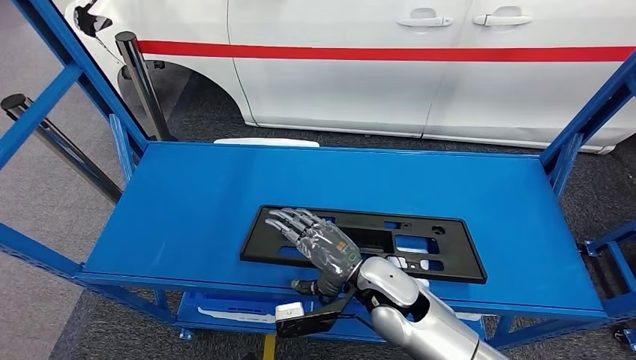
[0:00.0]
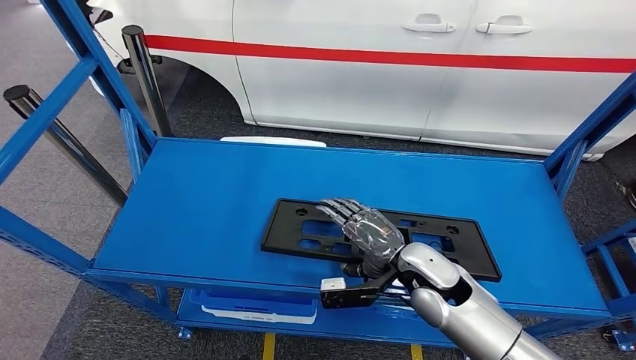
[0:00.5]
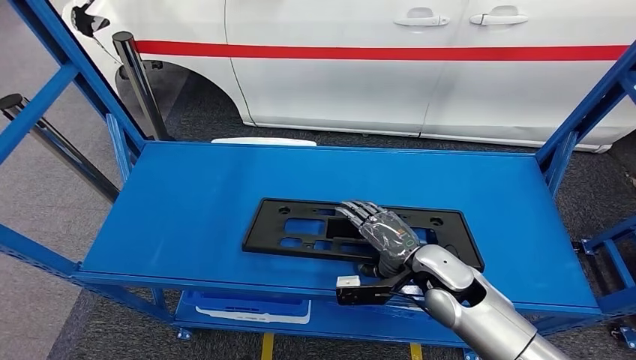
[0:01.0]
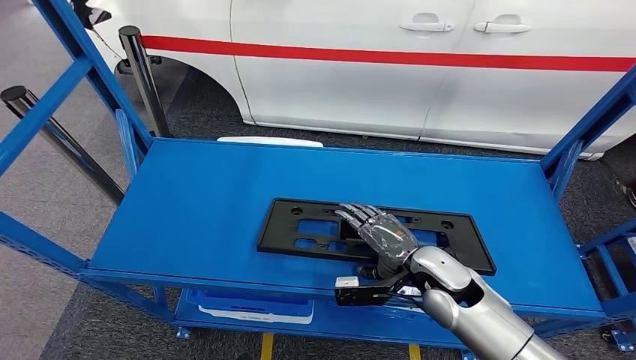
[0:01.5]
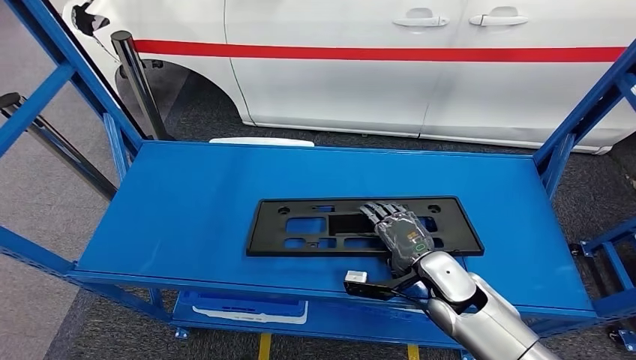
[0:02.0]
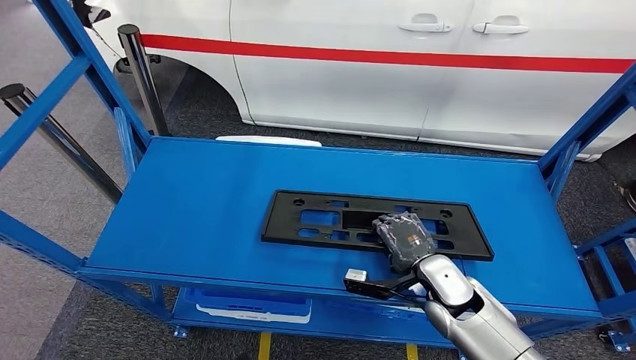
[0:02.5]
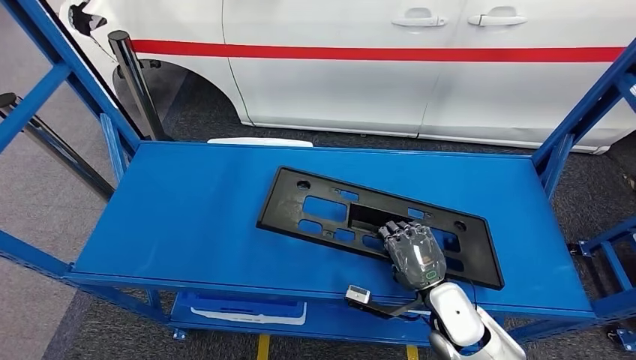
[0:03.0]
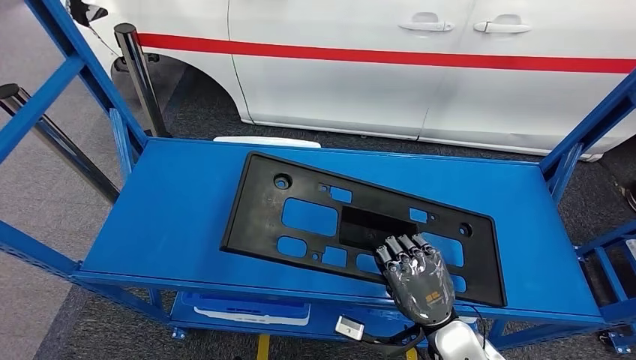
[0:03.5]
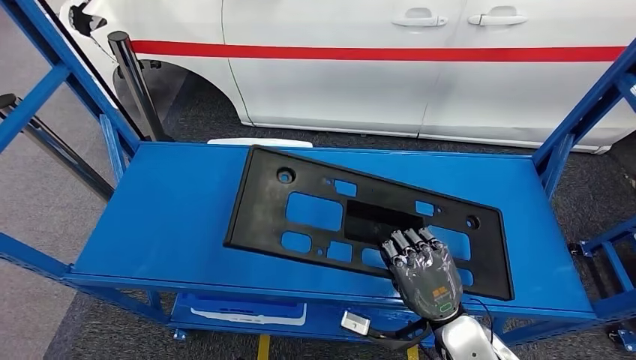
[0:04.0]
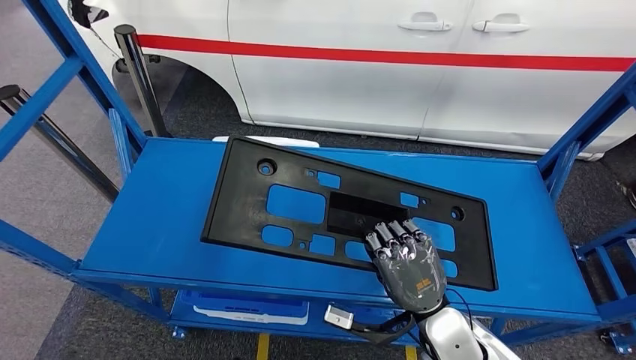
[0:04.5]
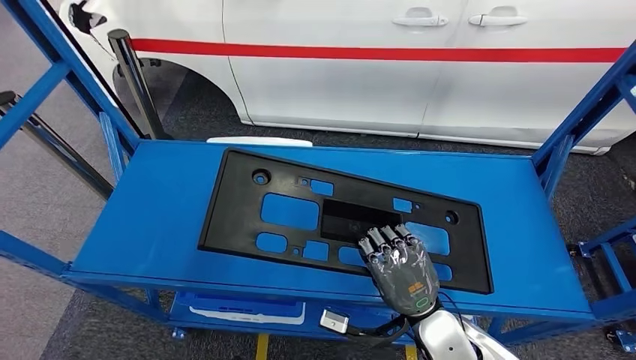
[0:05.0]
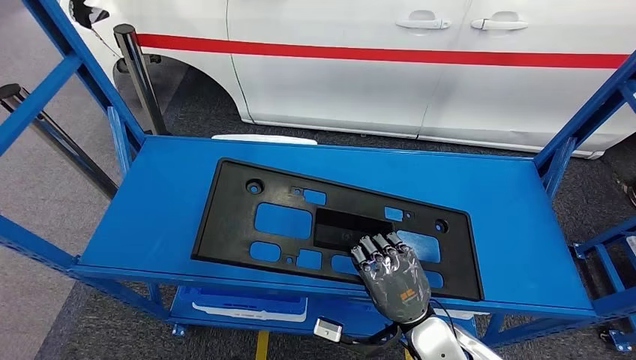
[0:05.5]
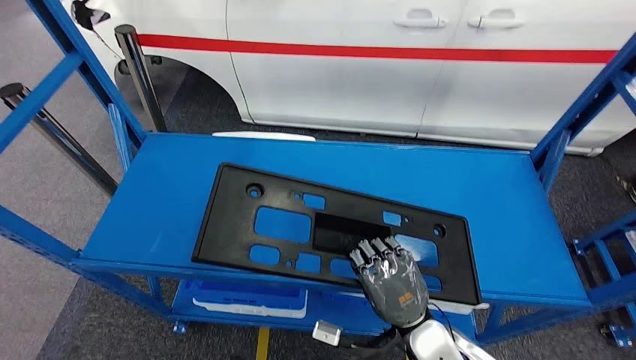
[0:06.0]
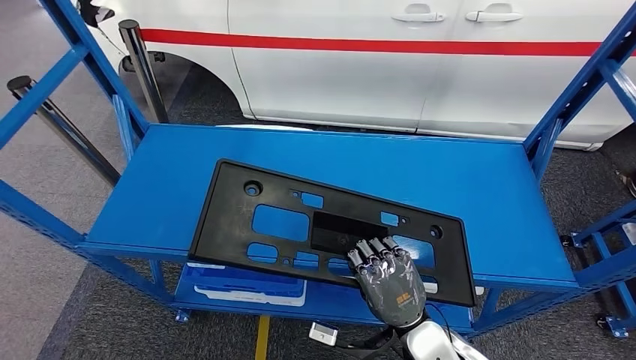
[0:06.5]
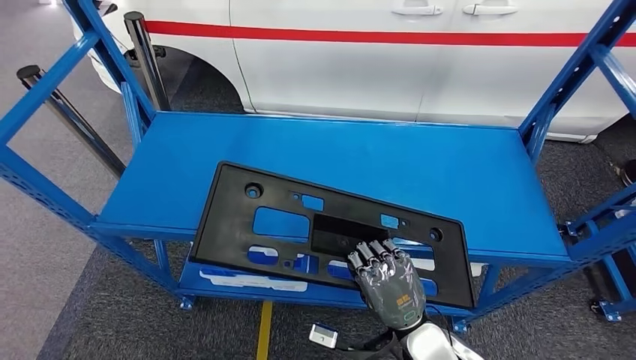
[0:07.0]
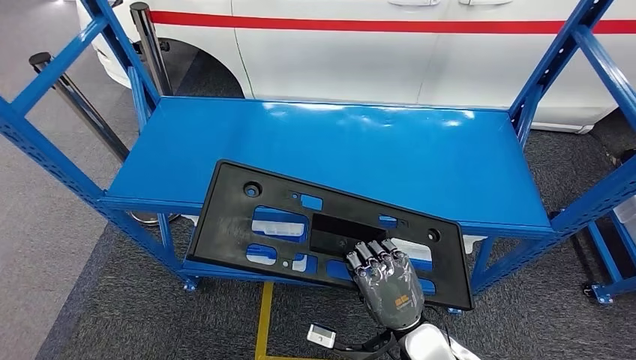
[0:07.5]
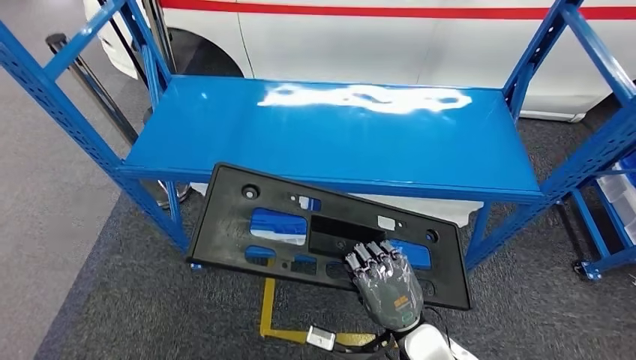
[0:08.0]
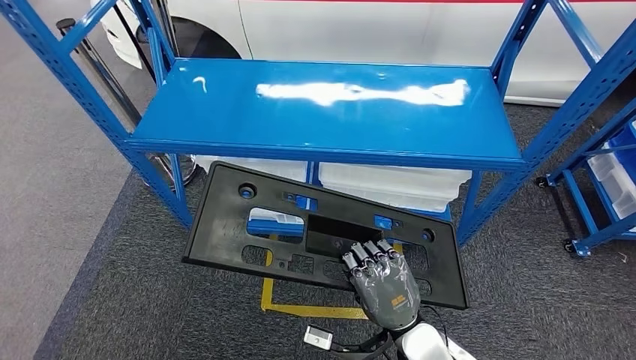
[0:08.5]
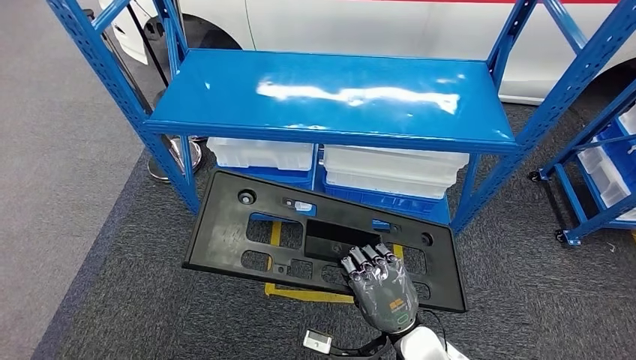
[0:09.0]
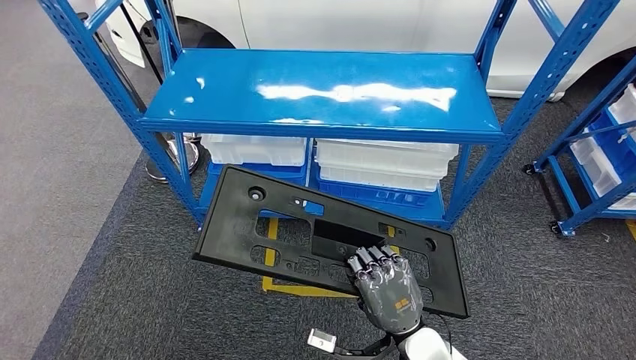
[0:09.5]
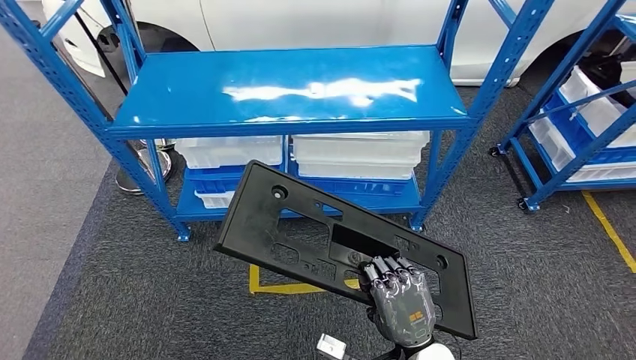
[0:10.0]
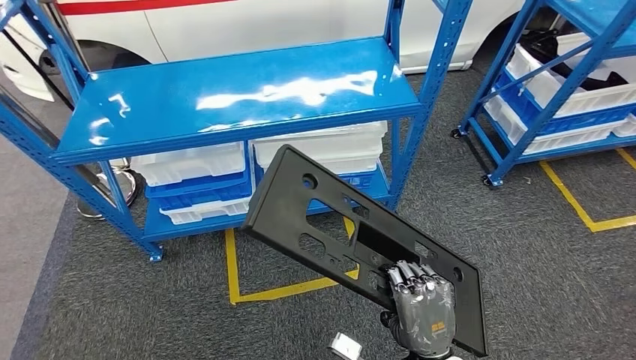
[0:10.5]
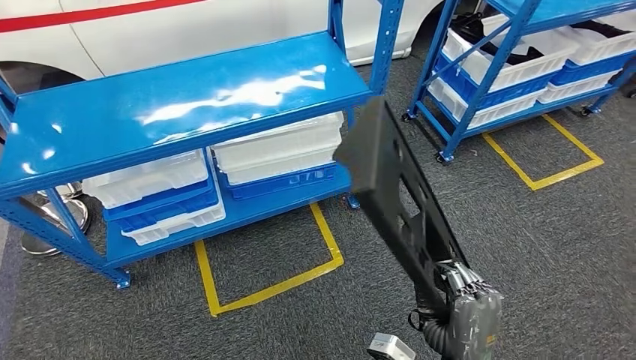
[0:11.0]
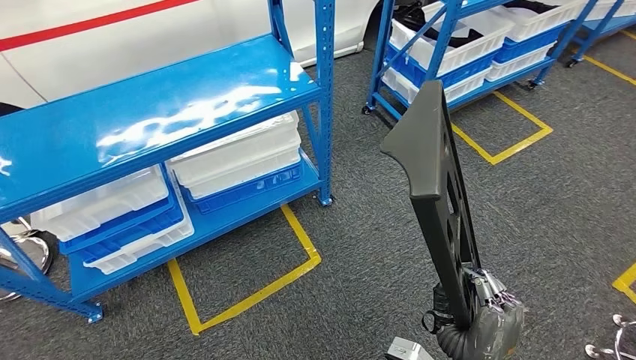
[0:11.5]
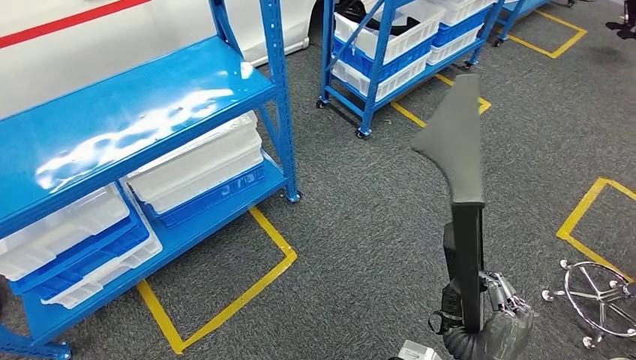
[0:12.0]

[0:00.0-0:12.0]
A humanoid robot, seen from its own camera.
Step, 0:00.0 to 0:03.5: Pick up the large material from the shelf.
0:00.0 to 0:02.0: The right hand moves to the right, roughly 10 cm.
0:02.0 to 0:04.0: The right hand is displaced backward by roughly 10 cm.

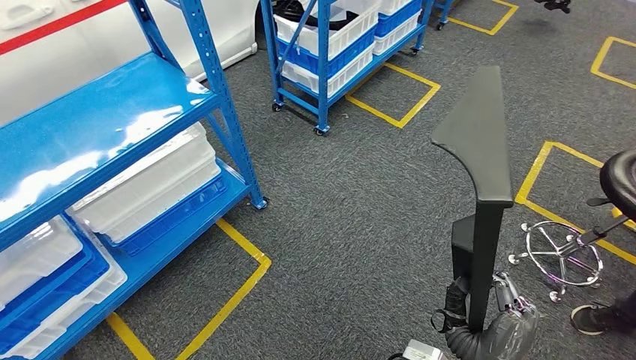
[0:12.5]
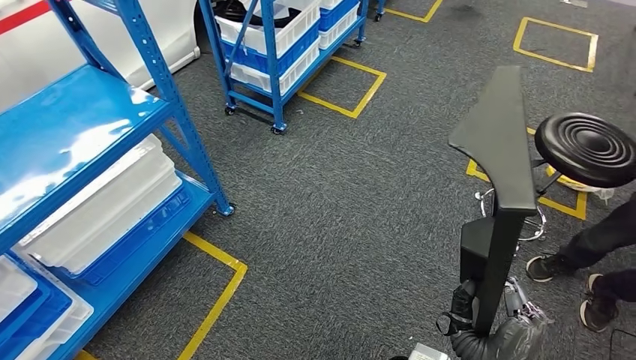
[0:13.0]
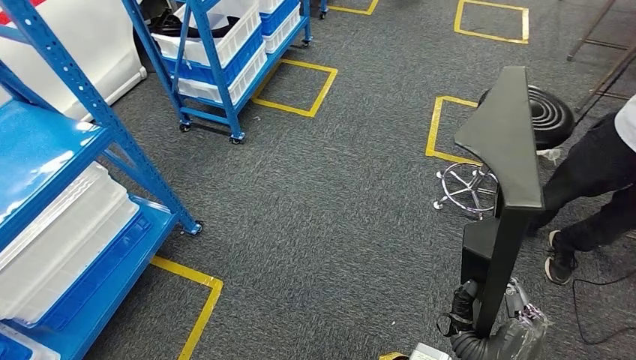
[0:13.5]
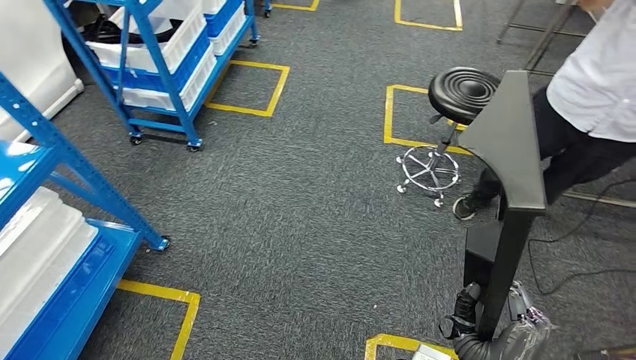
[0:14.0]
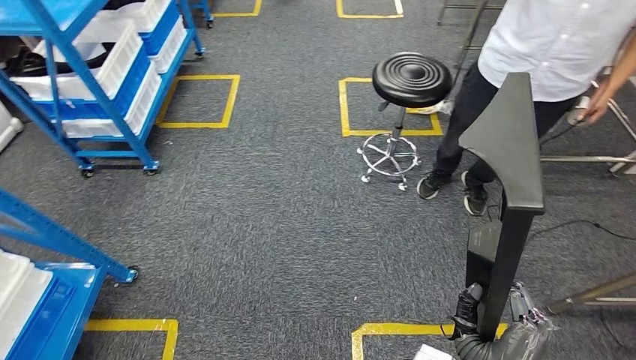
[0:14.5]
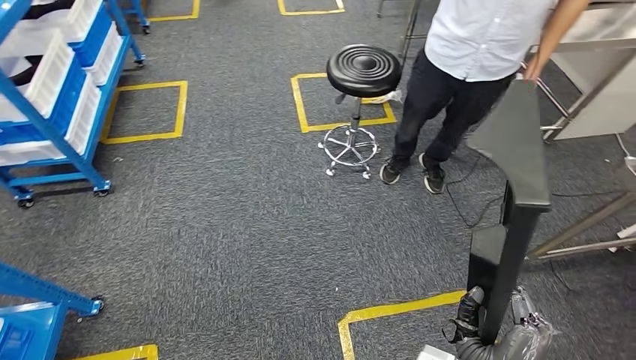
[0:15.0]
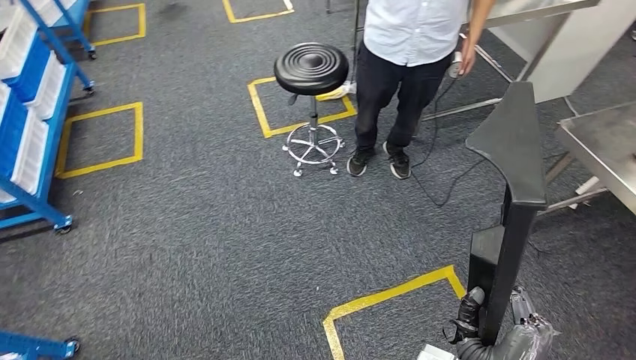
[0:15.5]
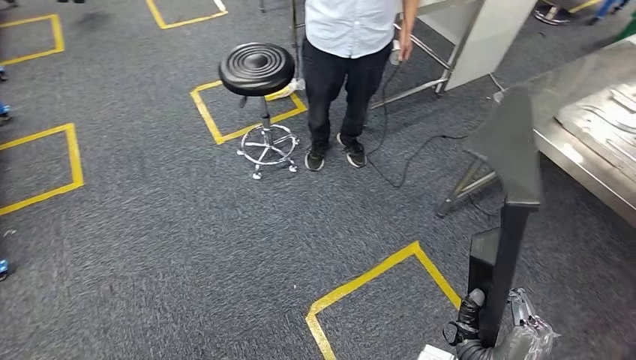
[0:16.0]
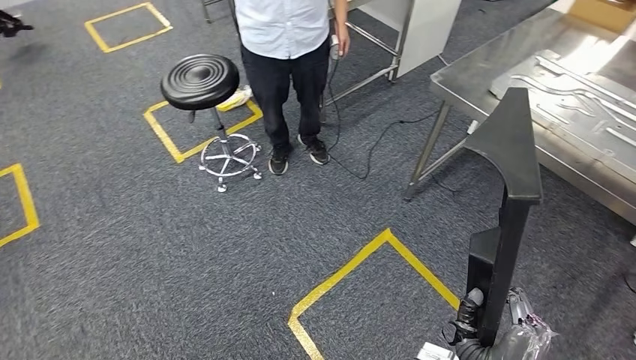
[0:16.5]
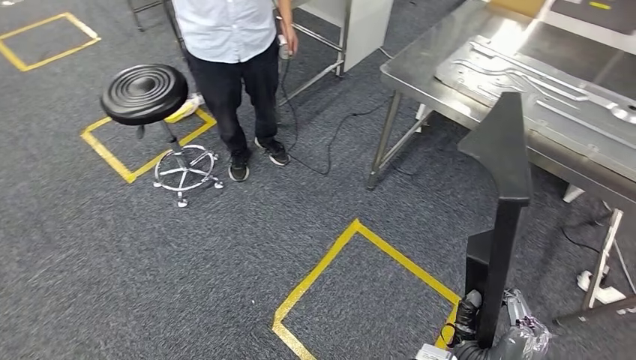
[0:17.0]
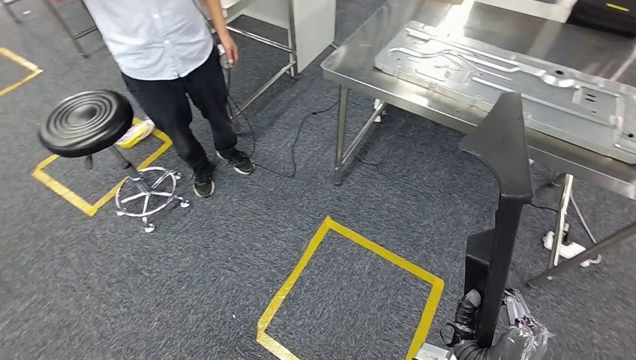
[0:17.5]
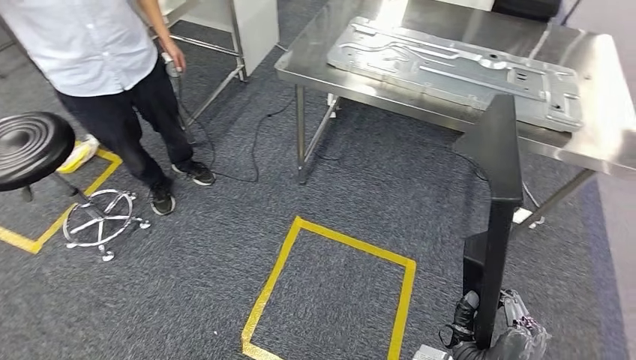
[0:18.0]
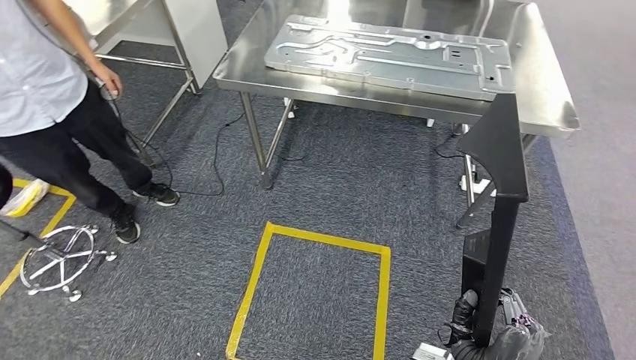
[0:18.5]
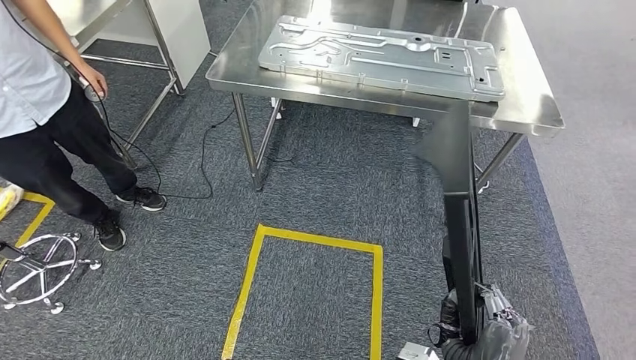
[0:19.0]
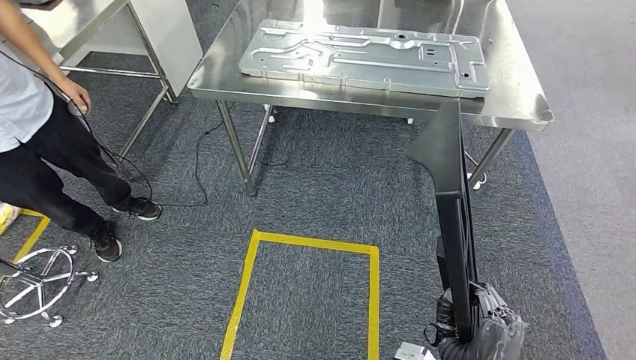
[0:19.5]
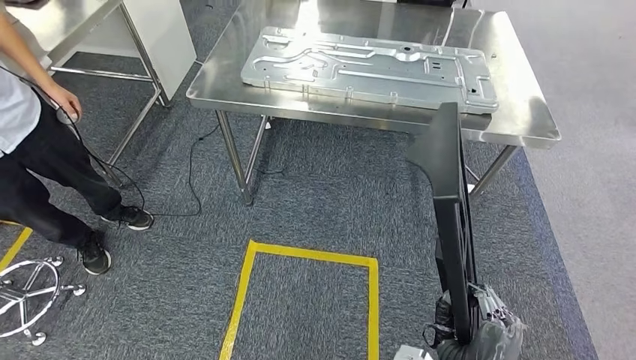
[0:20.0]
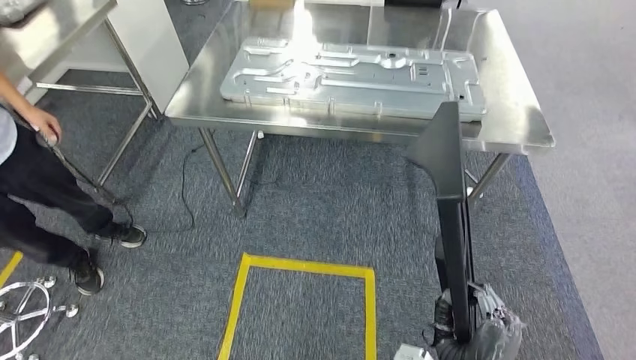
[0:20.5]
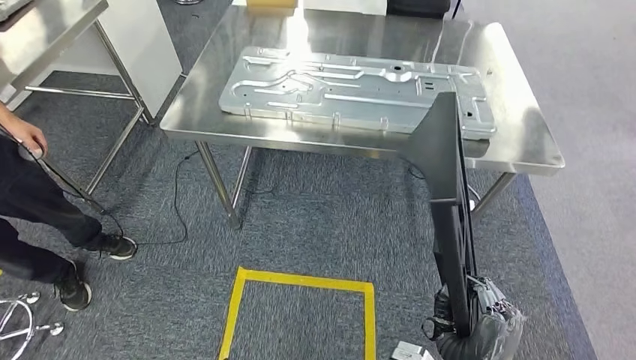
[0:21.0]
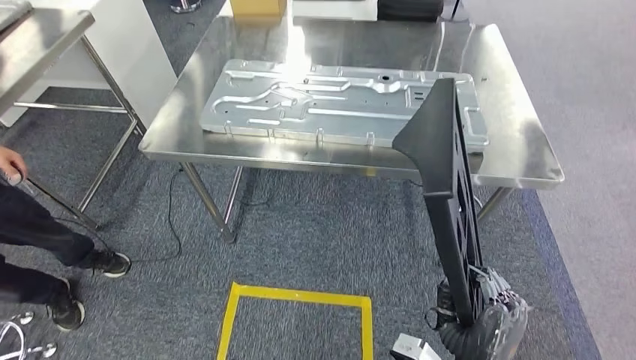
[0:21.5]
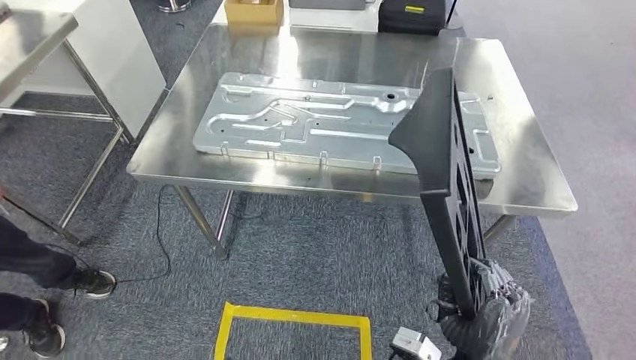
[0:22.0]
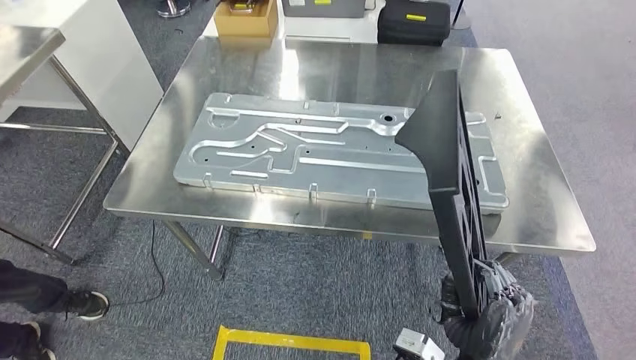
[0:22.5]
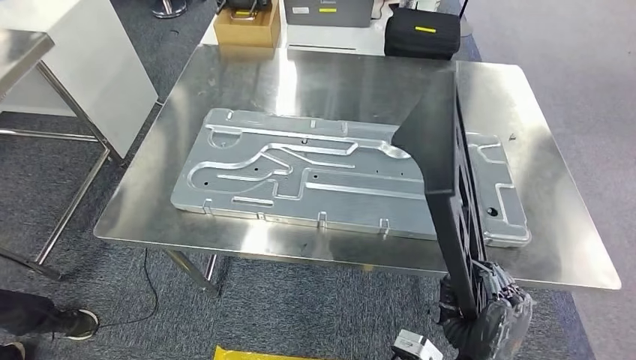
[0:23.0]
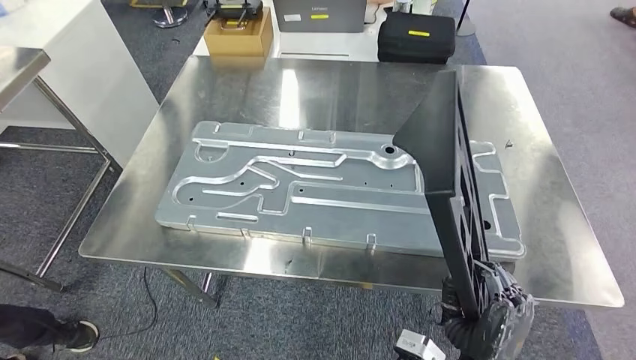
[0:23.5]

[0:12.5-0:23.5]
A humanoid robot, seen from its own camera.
Step, 0:12.5 to 0:16.5: Move the large material to the workbench.
